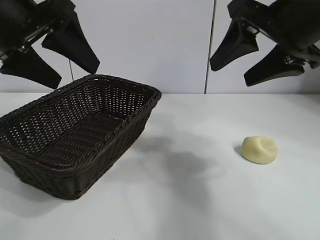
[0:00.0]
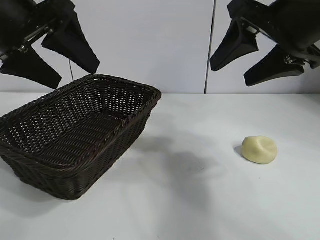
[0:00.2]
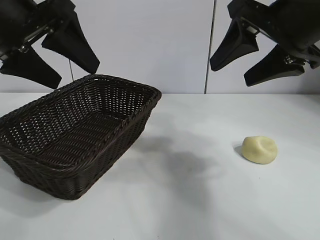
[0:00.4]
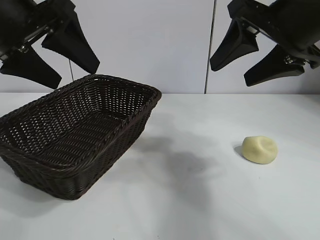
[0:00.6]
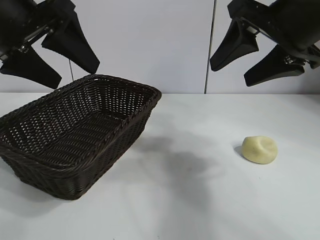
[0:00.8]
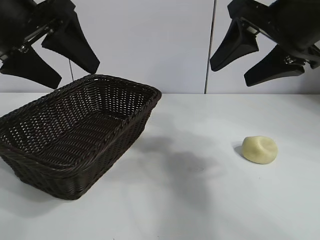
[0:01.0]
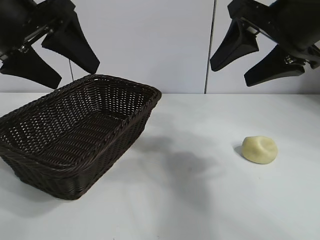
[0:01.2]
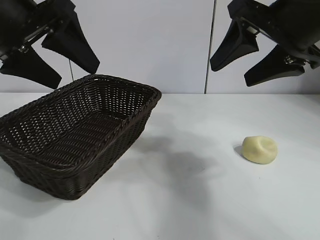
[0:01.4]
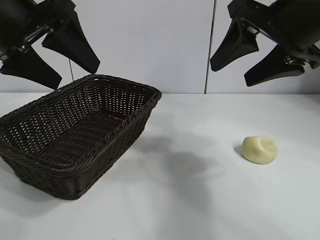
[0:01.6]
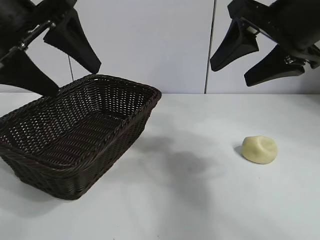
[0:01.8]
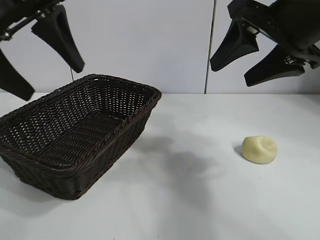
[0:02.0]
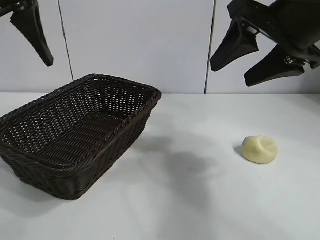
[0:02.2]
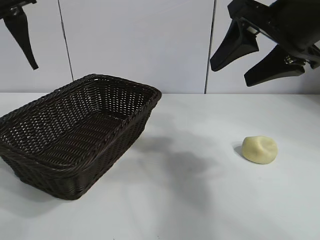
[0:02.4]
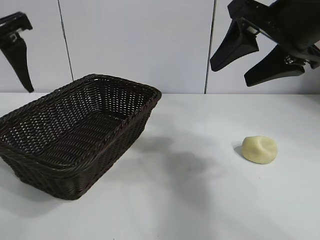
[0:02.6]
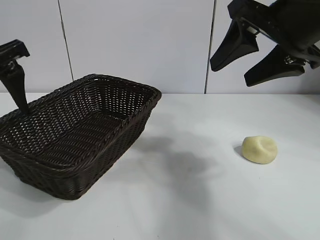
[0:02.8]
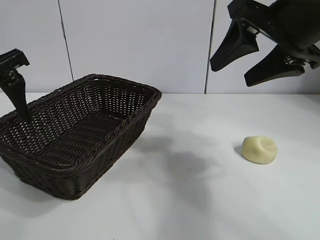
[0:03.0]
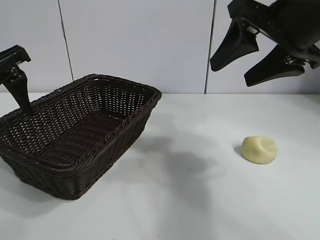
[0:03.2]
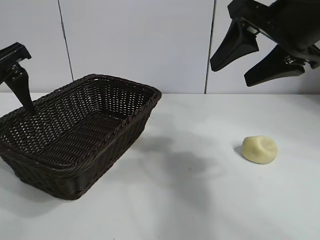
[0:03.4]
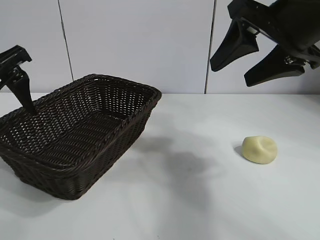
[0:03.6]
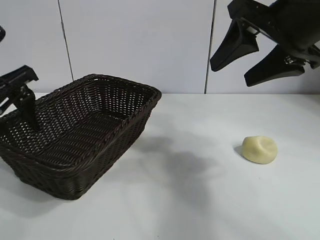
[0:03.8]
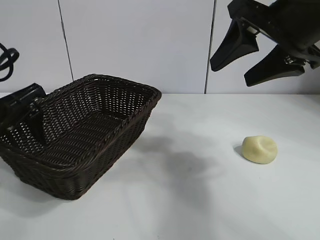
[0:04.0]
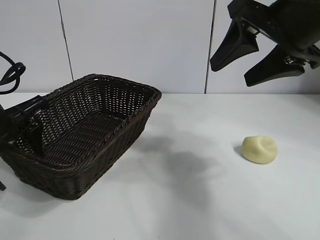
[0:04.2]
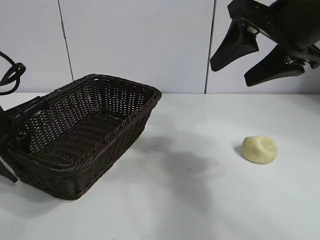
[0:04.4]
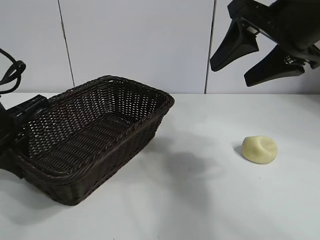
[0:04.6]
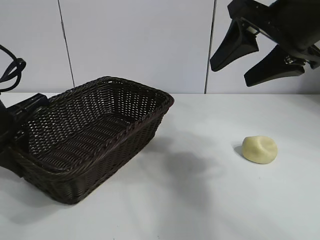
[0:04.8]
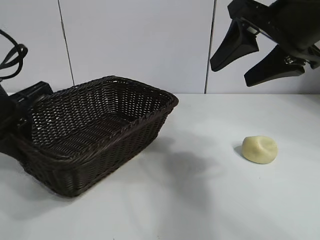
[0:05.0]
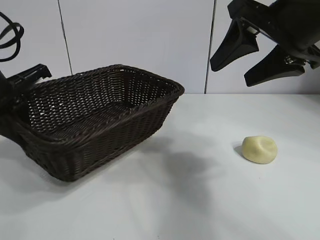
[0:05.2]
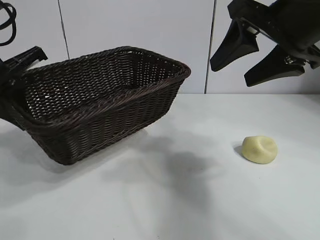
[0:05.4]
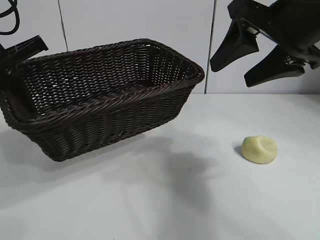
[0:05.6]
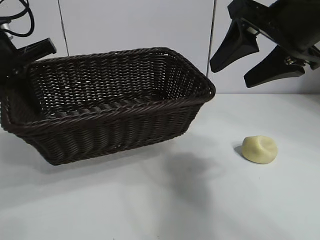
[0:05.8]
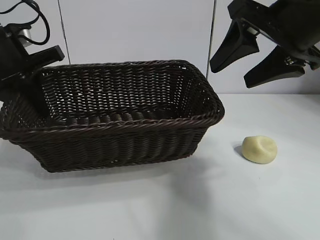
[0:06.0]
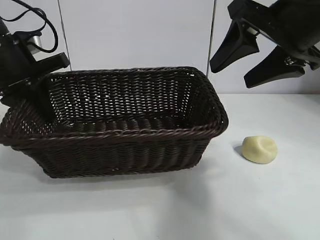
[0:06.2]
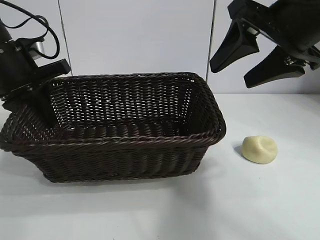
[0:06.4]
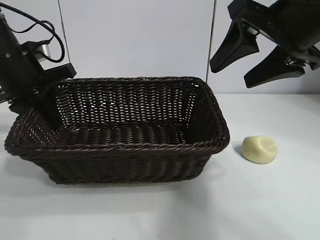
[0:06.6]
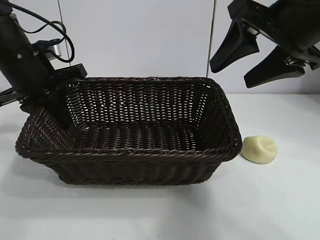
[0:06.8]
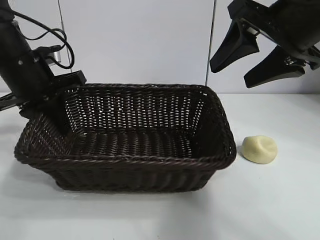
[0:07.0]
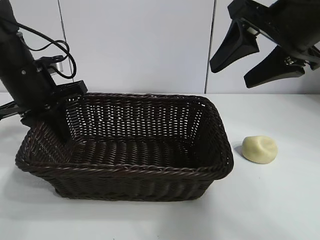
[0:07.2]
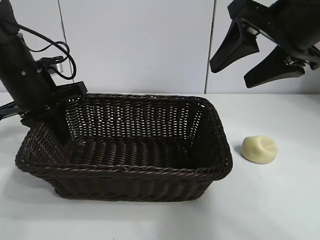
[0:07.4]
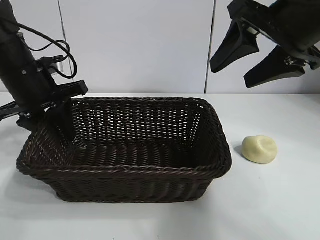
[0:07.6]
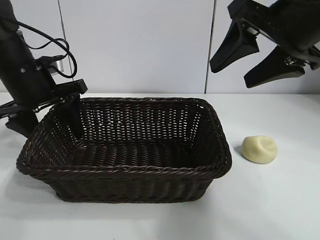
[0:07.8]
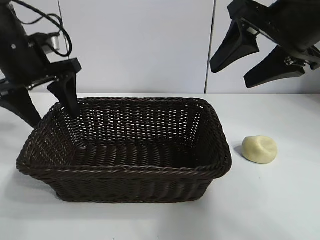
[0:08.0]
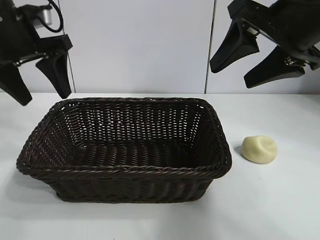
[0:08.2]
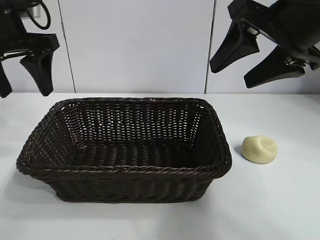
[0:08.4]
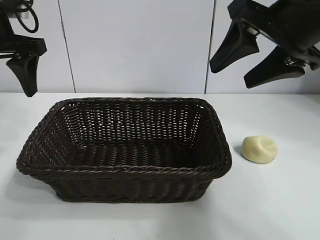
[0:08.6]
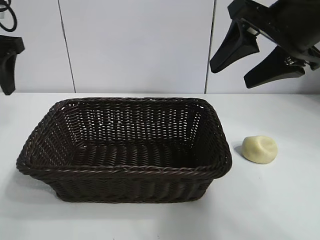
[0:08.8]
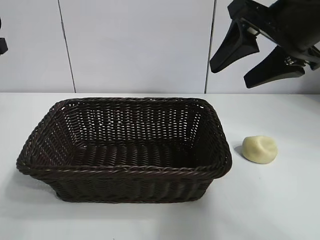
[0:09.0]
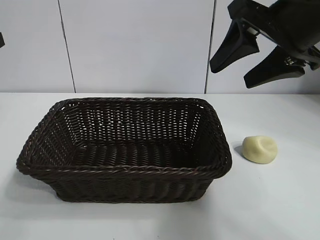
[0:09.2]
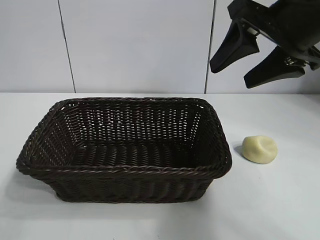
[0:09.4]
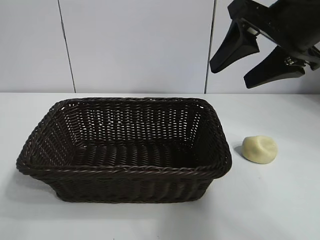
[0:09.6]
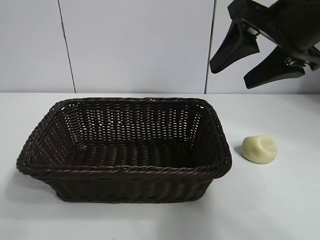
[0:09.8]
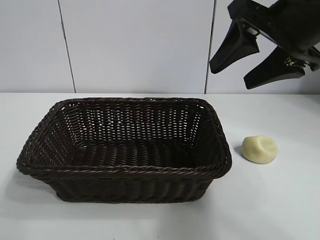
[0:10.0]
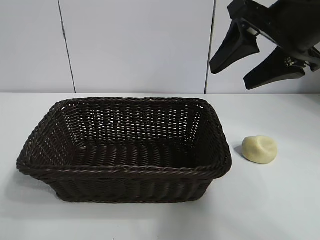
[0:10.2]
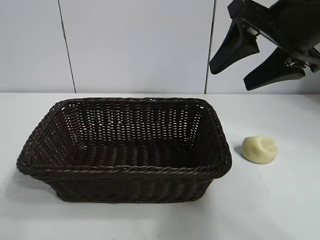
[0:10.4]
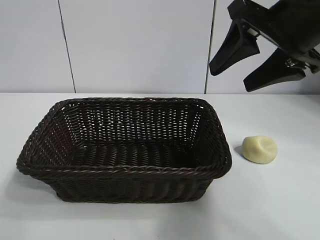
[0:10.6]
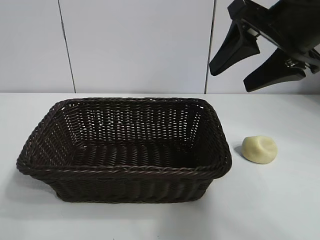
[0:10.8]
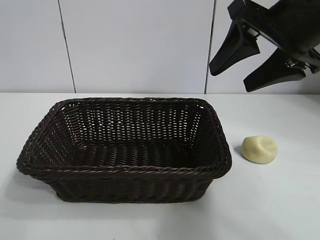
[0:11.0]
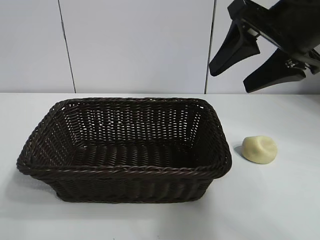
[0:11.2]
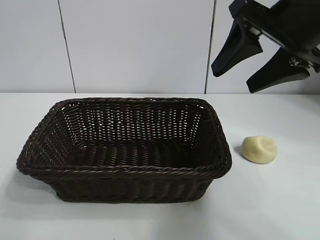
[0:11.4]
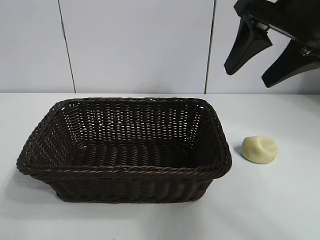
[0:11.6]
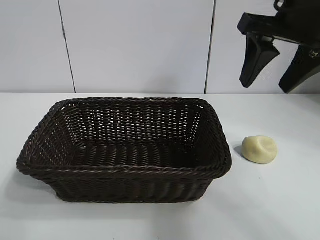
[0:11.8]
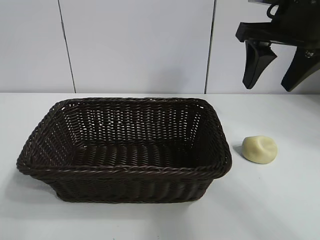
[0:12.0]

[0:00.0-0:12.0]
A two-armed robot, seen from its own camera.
Task of the whole recording: pick up the egg yolk pastry and put it into the basket.
Step, 0:01.6 to 0:04.6: Grasp the basket with left gripper.
Step, 0:04.8 to 0:07.8: Place the basket in the center of view with left gripper.

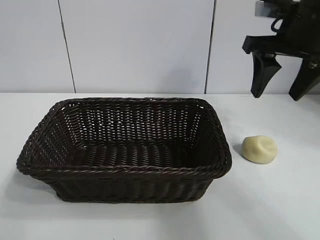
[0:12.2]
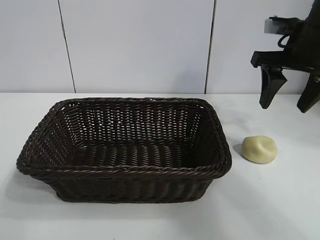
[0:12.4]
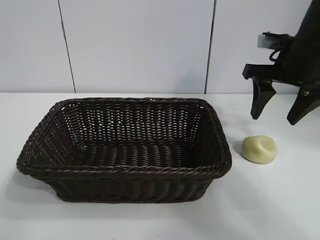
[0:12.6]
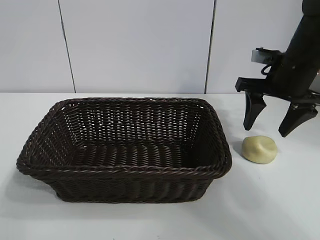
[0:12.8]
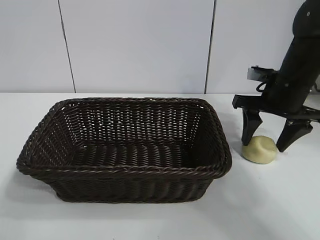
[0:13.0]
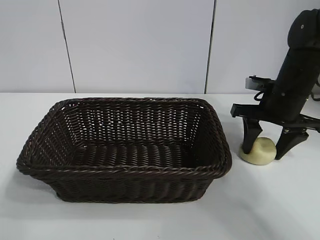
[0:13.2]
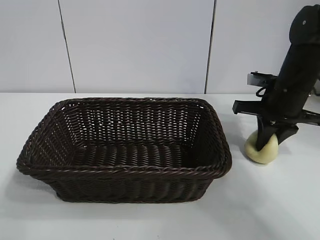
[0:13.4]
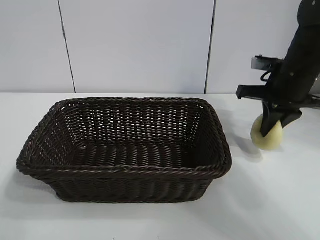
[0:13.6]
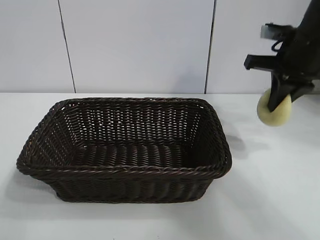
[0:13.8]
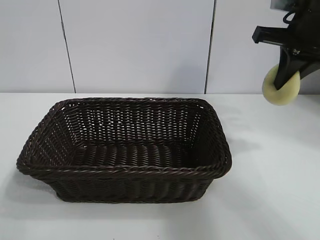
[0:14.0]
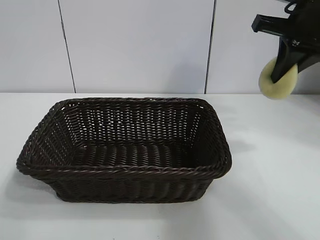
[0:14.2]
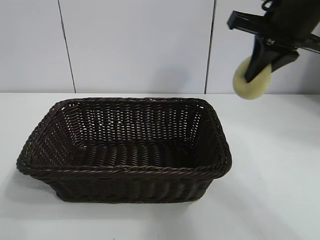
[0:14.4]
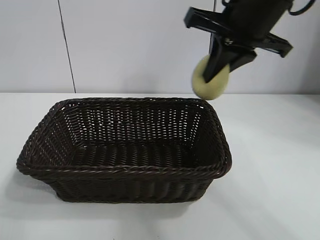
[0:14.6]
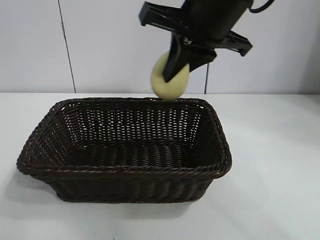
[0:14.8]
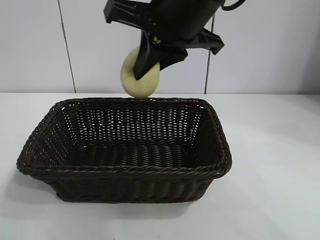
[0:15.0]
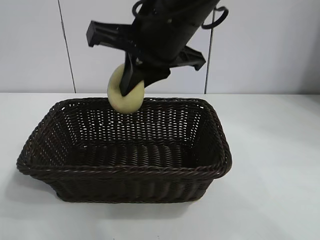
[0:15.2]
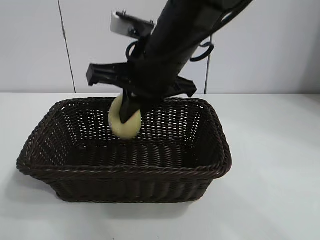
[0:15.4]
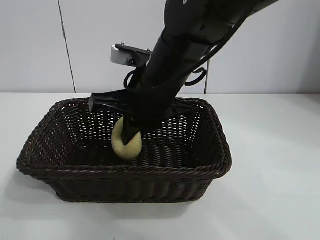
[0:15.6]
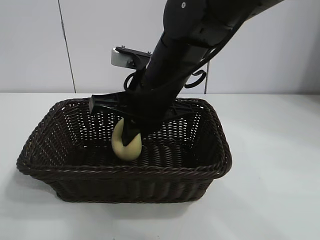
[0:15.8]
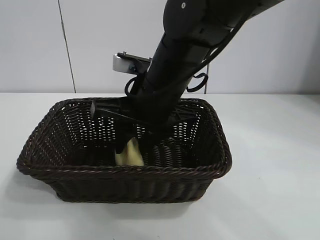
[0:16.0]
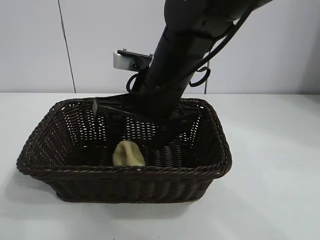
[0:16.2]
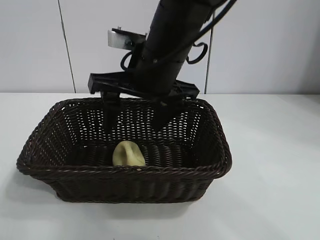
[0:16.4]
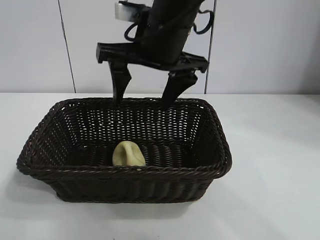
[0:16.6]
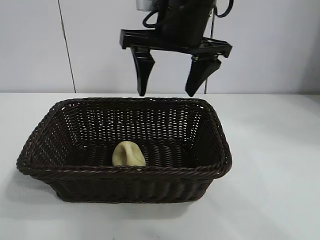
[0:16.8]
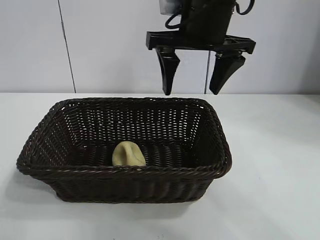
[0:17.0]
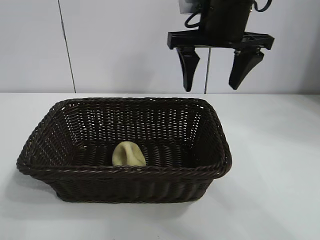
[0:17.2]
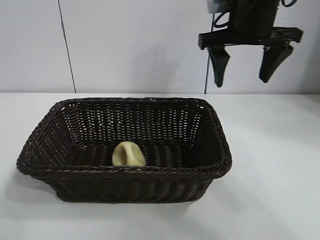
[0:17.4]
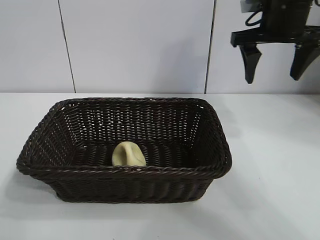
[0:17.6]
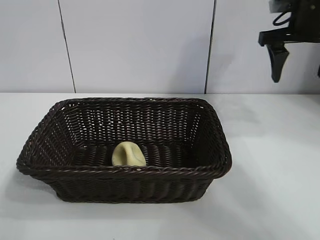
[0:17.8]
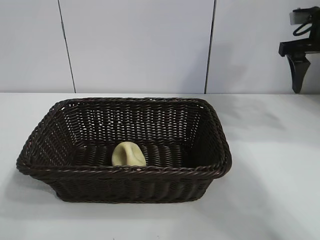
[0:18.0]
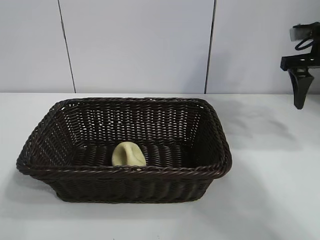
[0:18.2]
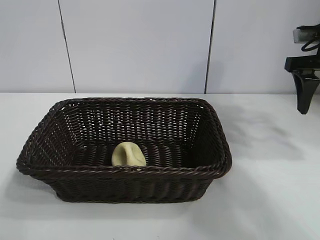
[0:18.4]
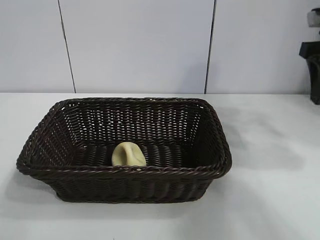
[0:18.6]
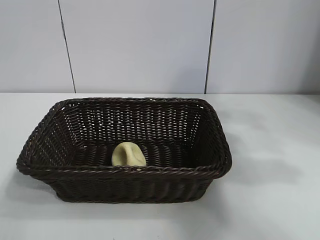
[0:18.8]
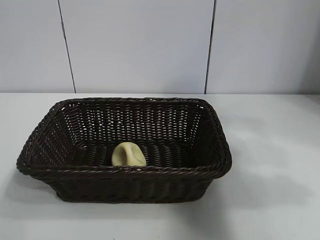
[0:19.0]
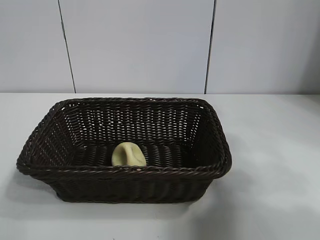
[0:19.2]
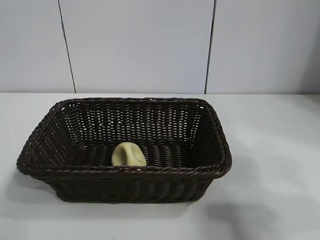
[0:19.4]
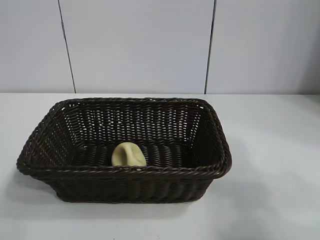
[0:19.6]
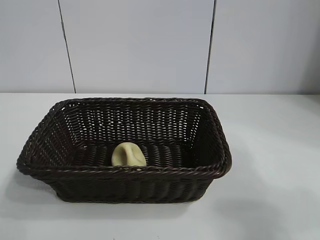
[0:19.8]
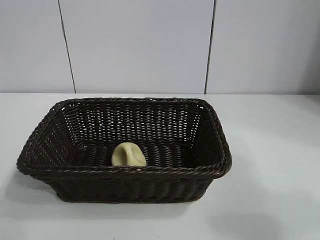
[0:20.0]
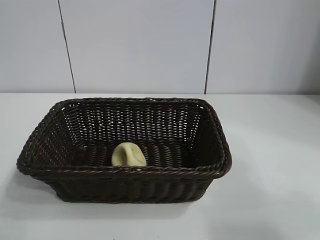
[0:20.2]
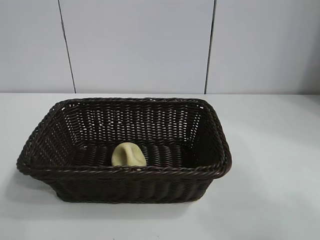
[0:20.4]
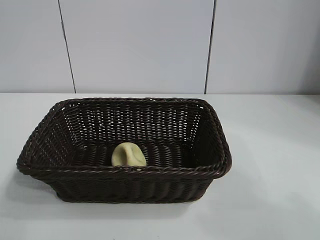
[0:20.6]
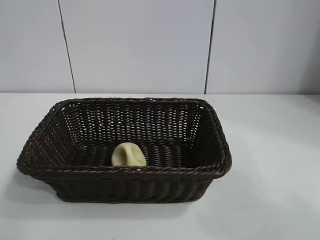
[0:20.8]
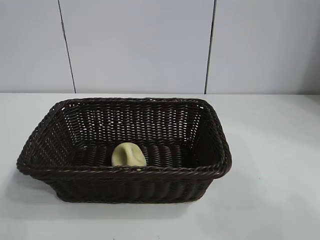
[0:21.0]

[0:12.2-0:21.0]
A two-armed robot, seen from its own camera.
Task of the whole recording: pick up the egg yolk pastry and put it into the basket.
Step, 0:13.6 to 0:16.2: Place the egg yolk pastry in the basket with right gripper.
